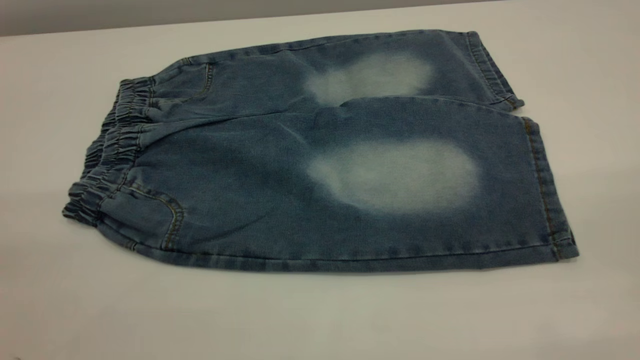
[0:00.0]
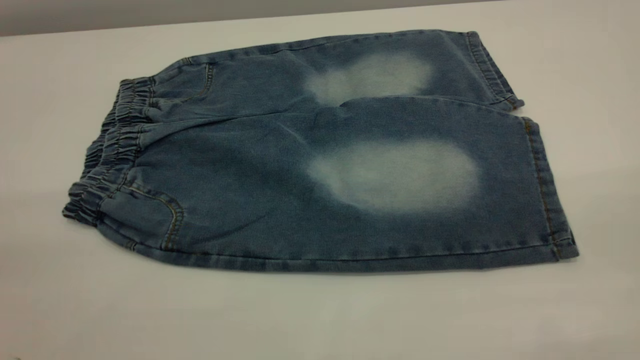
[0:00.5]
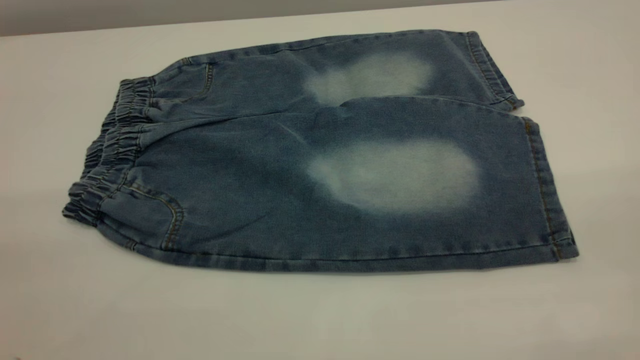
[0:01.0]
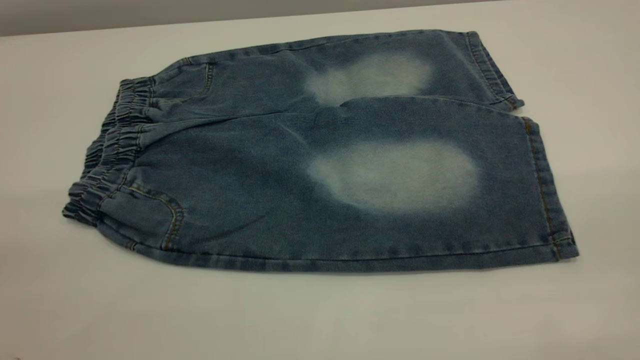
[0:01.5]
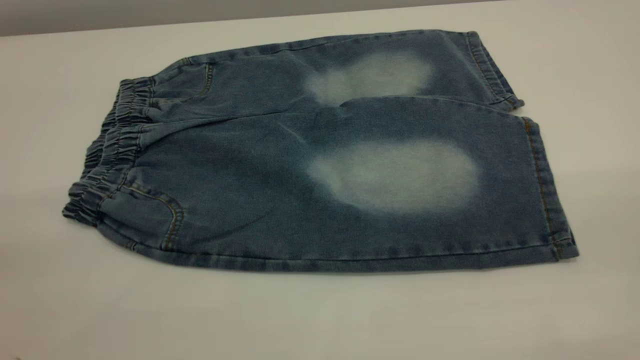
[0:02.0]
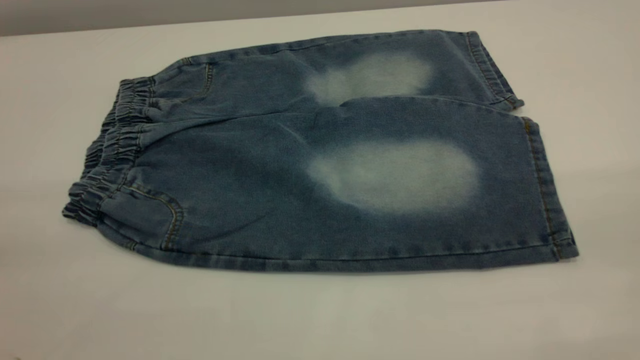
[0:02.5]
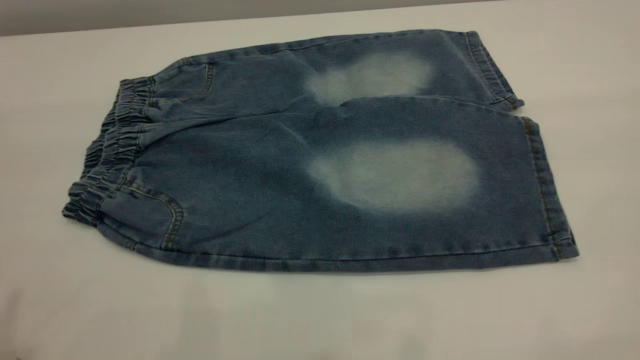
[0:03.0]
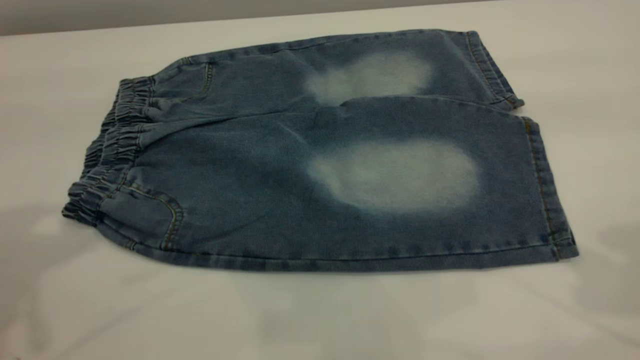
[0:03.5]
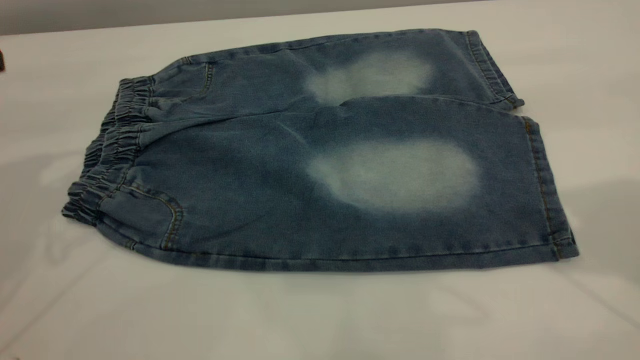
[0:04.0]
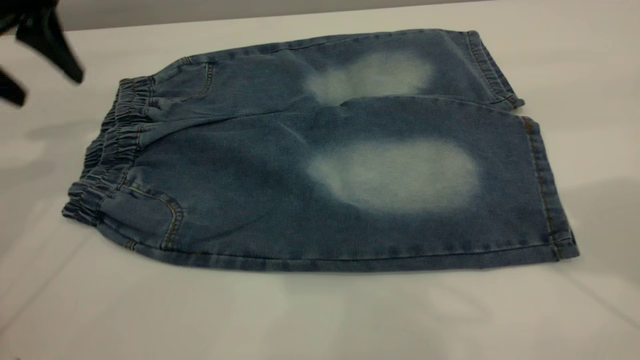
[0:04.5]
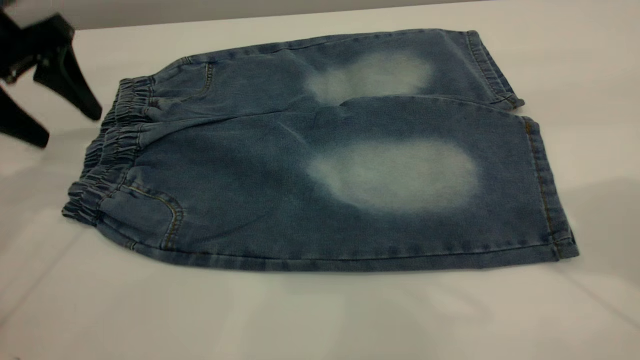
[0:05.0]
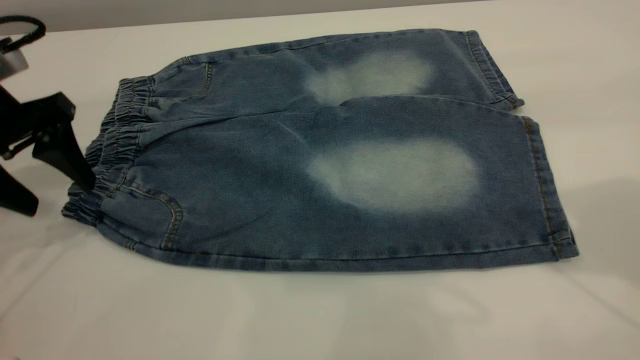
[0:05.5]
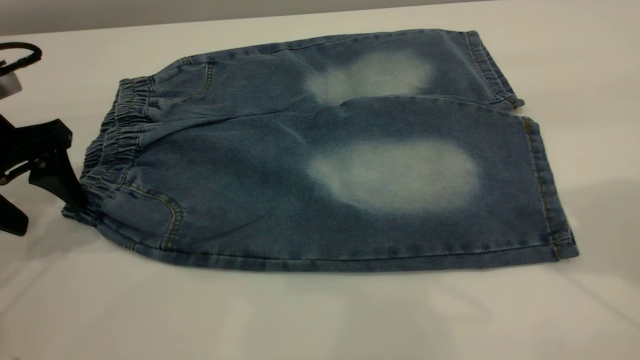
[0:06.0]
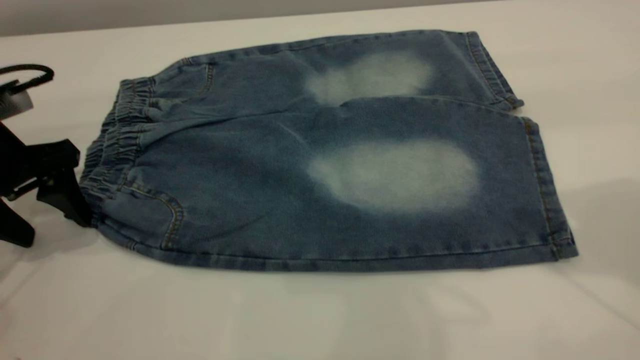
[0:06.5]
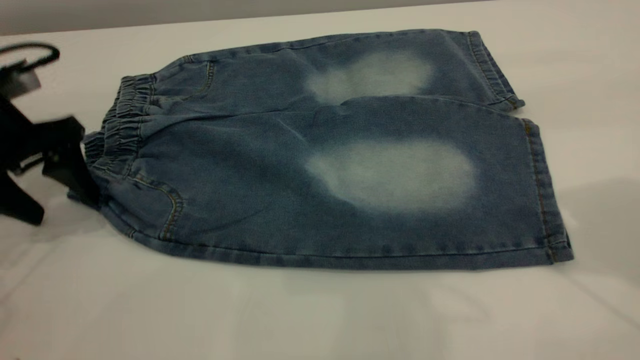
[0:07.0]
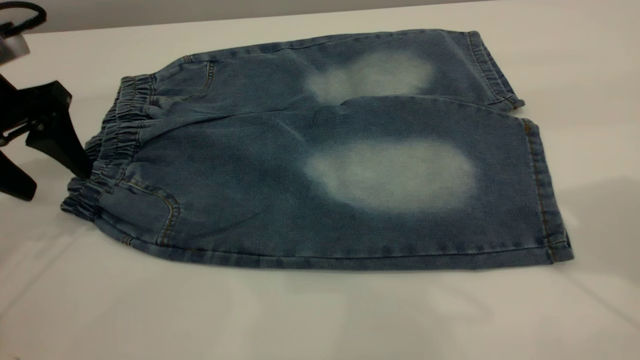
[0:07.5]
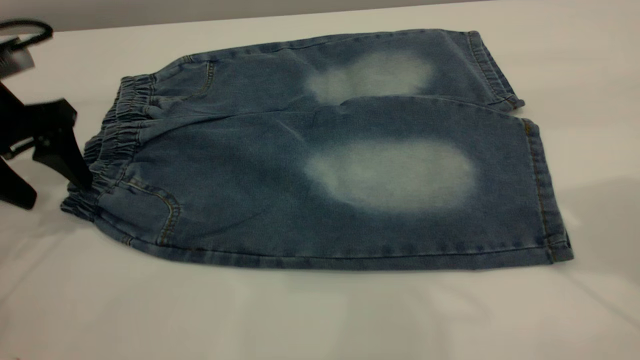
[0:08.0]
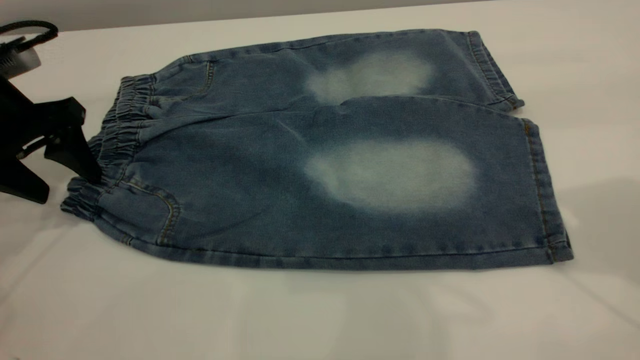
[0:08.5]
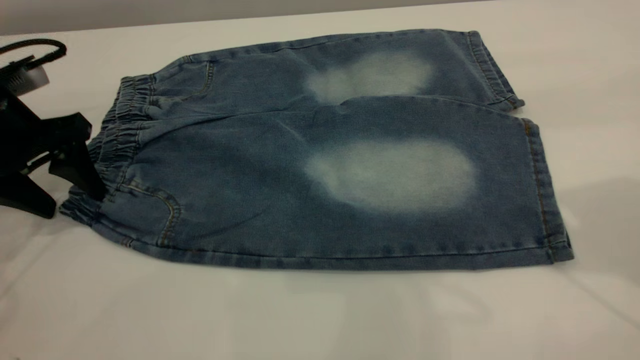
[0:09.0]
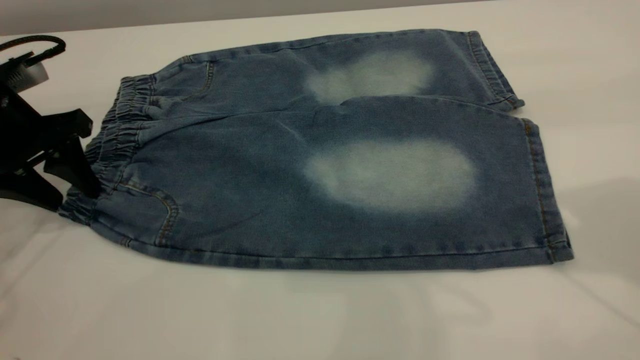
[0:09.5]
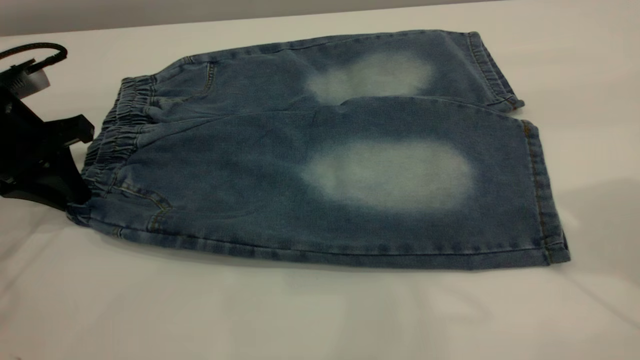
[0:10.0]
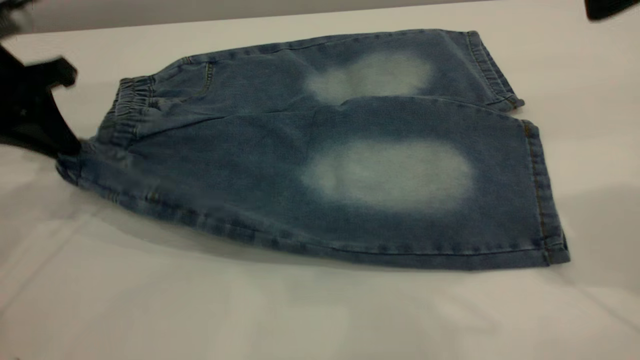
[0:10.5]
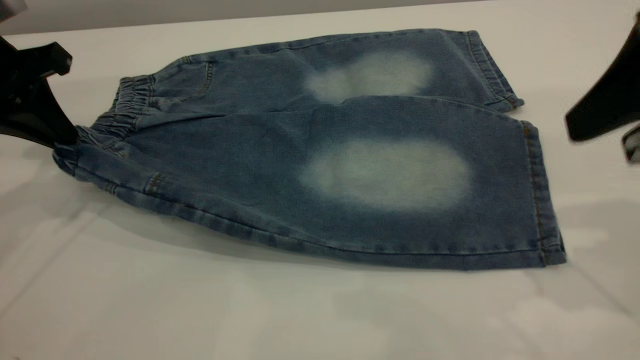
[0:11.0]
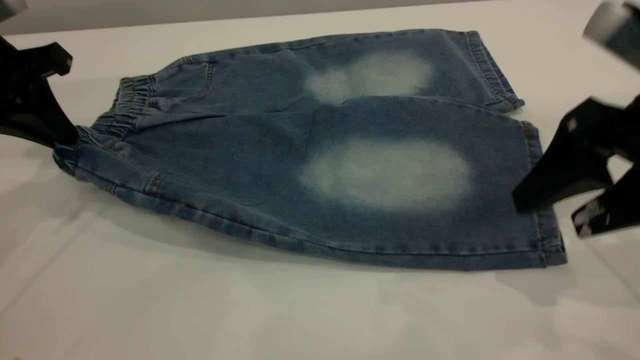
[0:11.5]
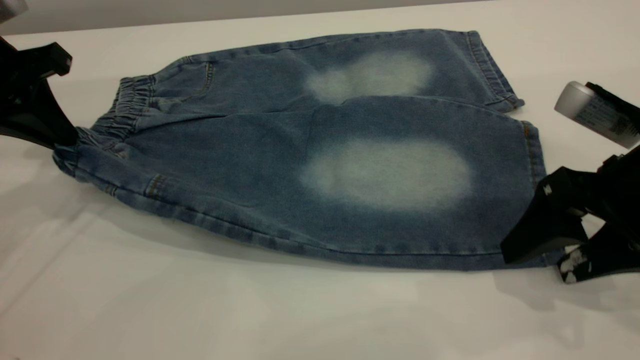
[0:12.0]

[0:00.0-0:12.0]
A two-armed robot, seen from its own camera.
0:00.0 to 0:02.0: Both grippers stay put.
0:04.0 to 0:06.0: The left gripper travels downward by about 10 cm.
0:06.0 to 0:08.0: The grippers make only small movements.
0:08.0 to 0:10.0: The left gripper closes its fingers.
0:10.0 to 0:12.0: The left gripper moves upward, about 5 cm, while the right gripper heads downward, covering about 20 cm.

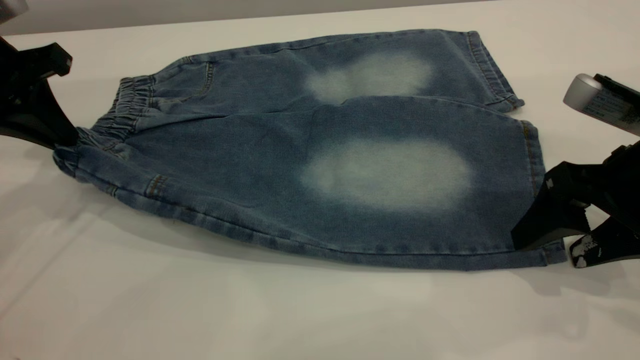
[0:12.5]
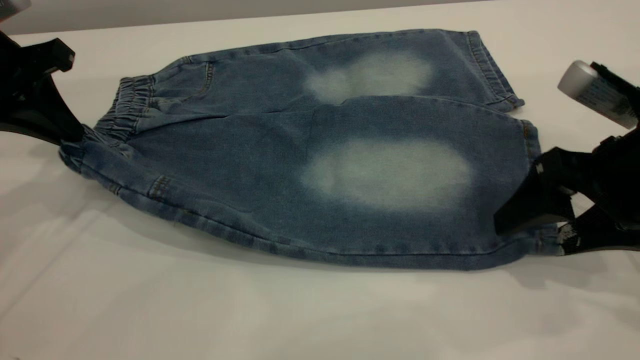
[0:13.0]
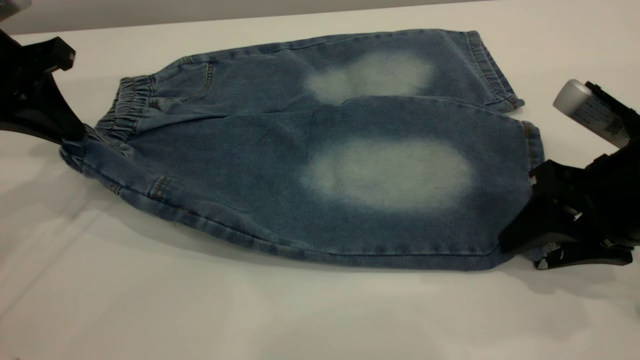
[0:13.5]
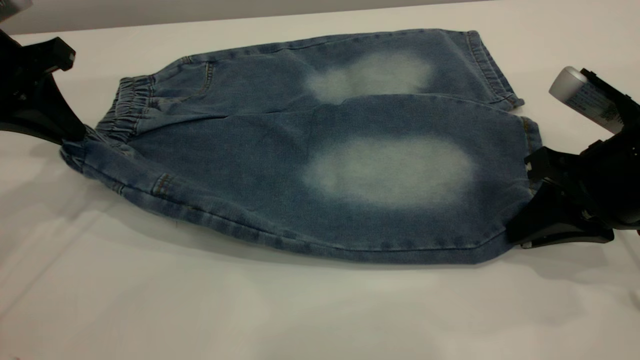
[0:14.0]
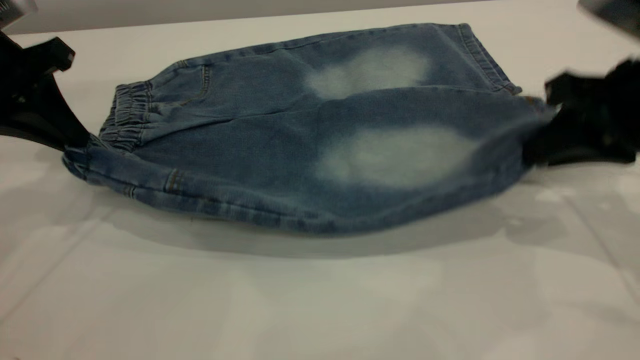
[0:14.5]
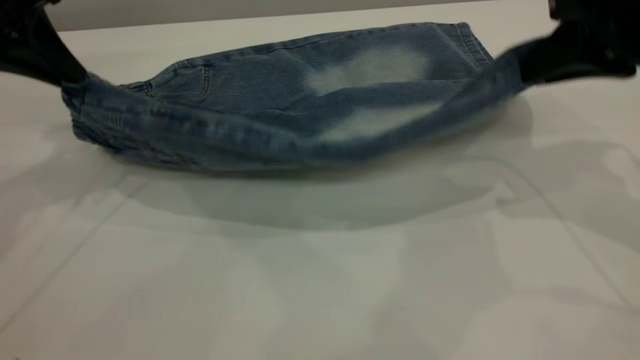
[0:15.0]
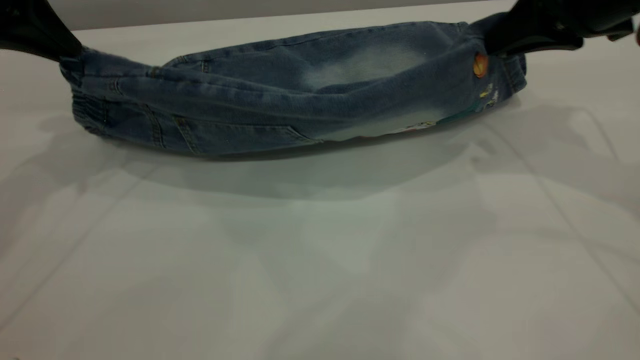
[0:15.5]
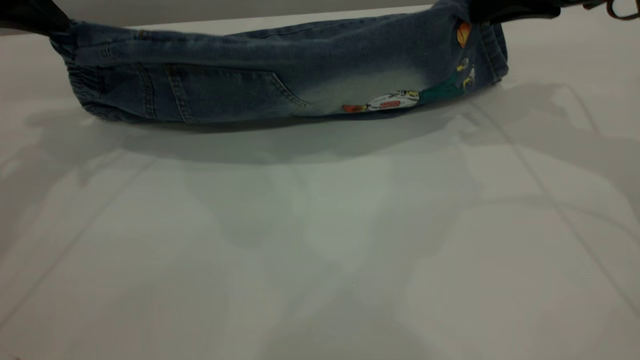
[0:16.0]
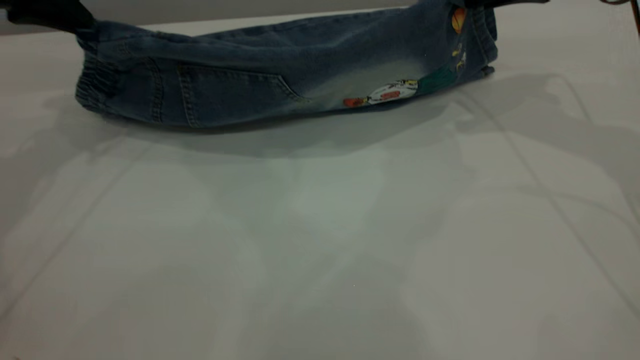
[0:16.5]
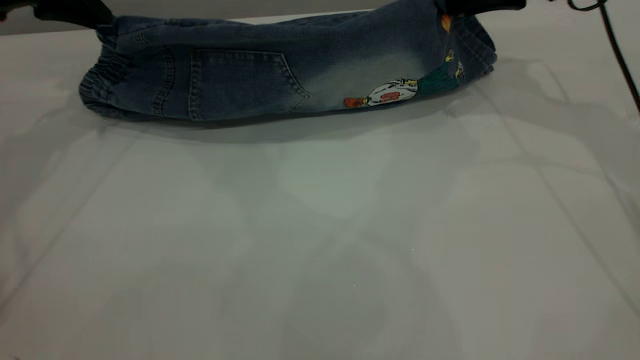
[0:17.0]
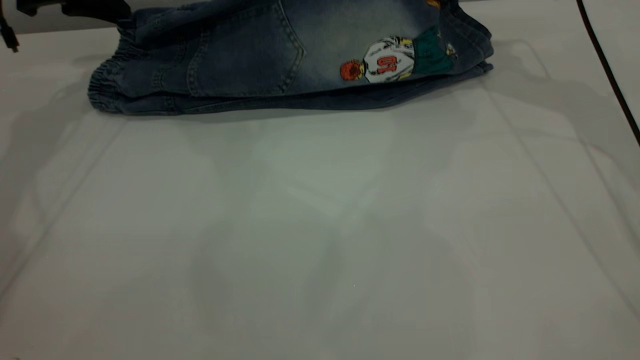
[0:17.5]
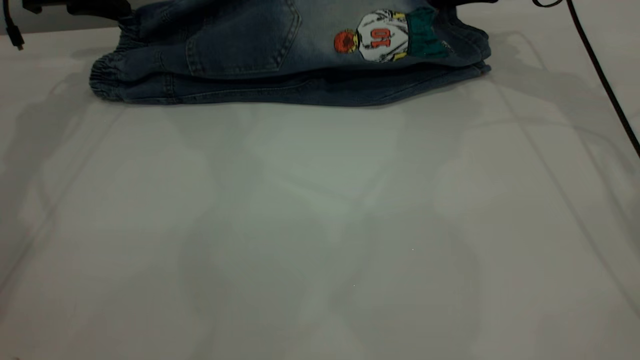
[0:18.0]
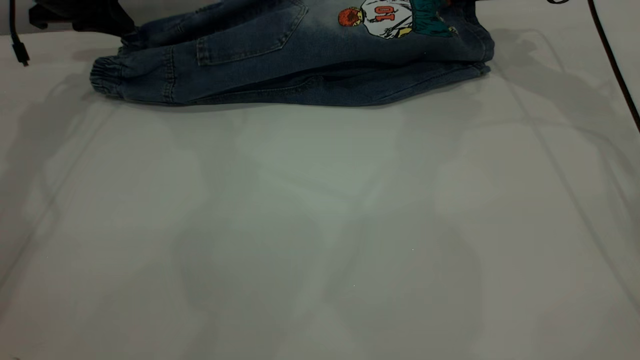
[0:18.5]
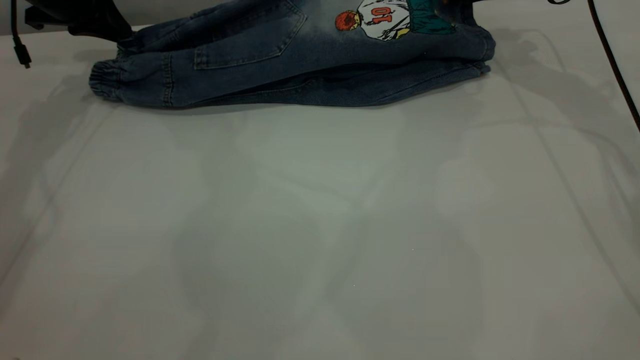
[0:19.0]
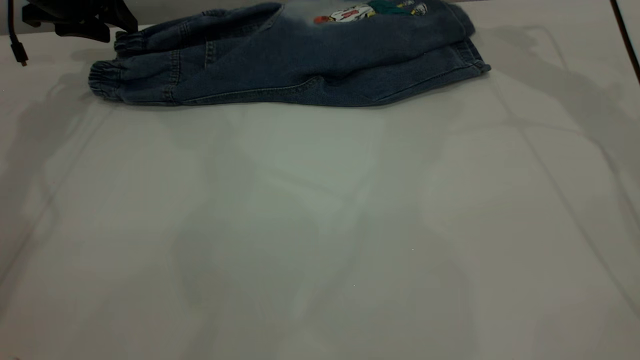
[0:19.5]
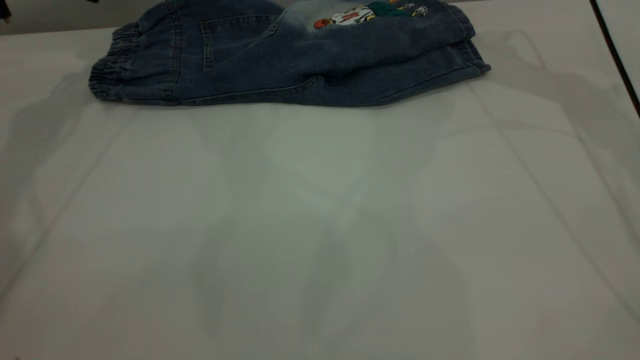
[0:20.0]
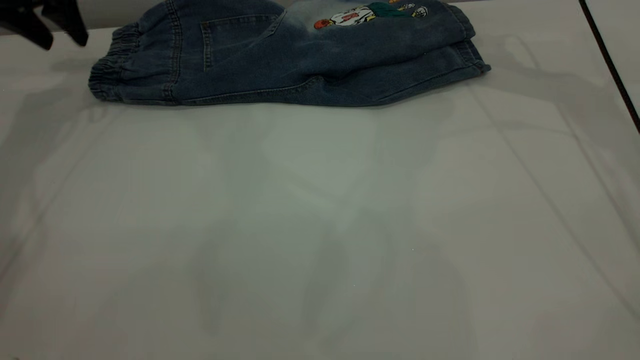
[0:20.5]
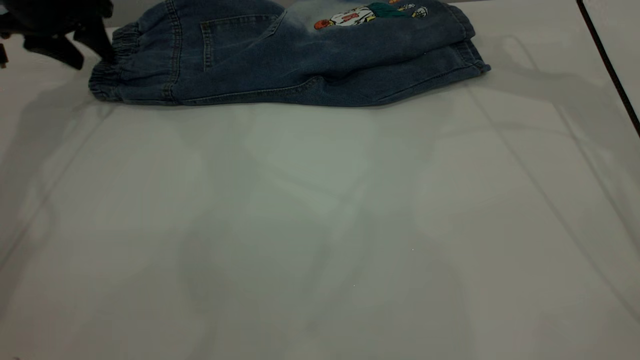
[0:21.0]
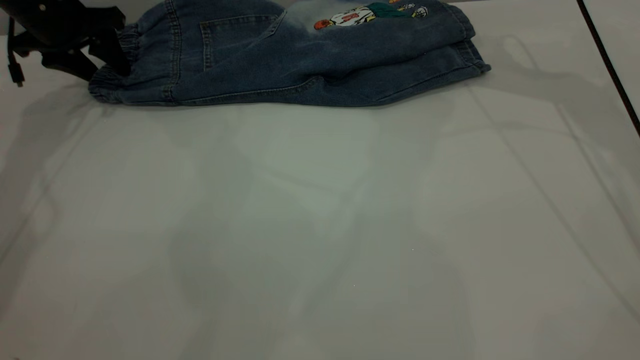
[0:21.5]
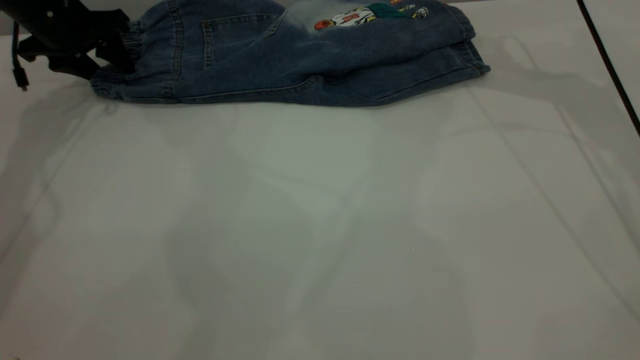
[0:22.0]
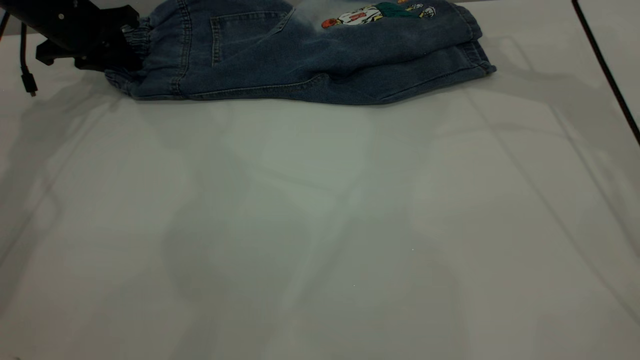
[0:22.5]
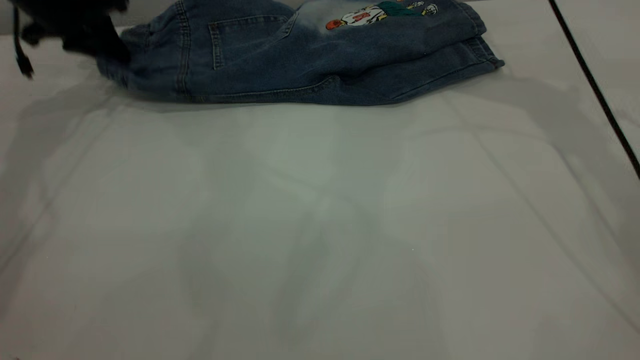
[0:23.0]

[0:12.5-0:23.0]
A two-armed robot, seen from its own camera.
Step, 0:12.5 to 0:19.5: Fold the bottom of the pants upward.
0:12.5 to 0:14.5: The right gripper travels upward by about 5 cm, and closes.
0:14.5 to 0:16.5: The left gripper goes roughly 10 cm forward; the right gripper is displaced forward by about 15 cm.
0:16.5 to 0:19.0: The grippers both shift forward and downward by some 10 cm.
0:19.0 to 0:21.0: The right gripper travels upward by approximately 5 cm, and opens, while the left gripper opens its fingers.
0:21.0 to 0:23.0: The left gripper closes.
